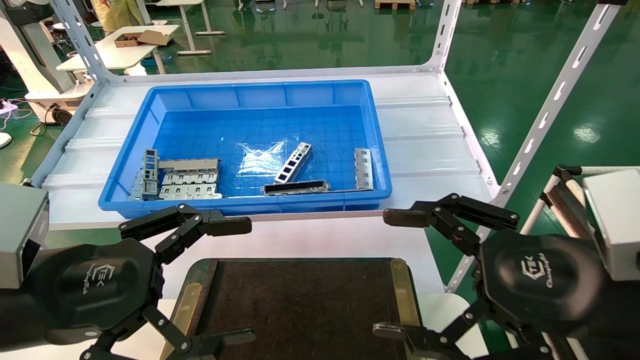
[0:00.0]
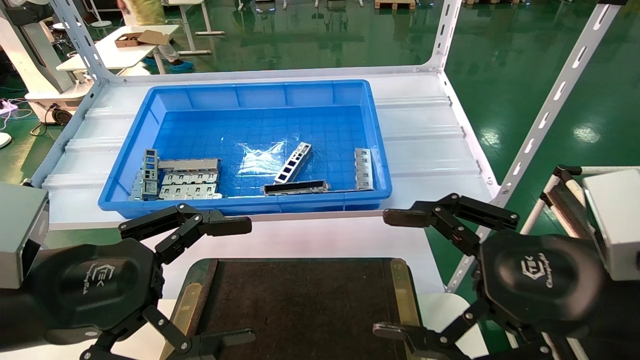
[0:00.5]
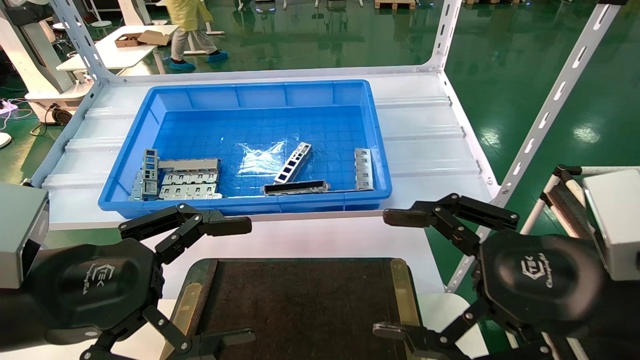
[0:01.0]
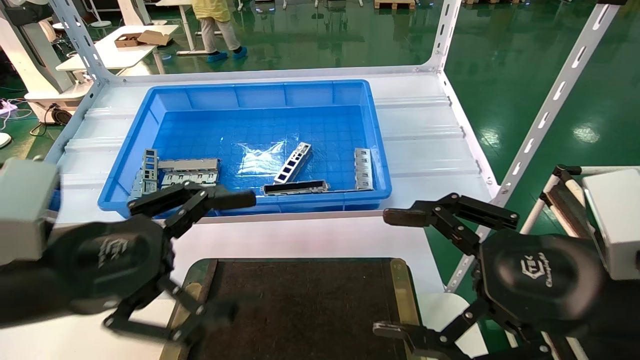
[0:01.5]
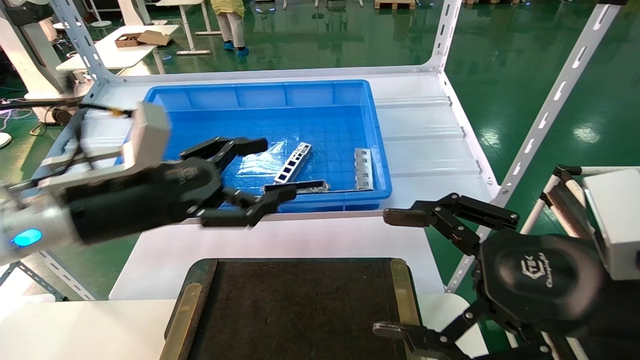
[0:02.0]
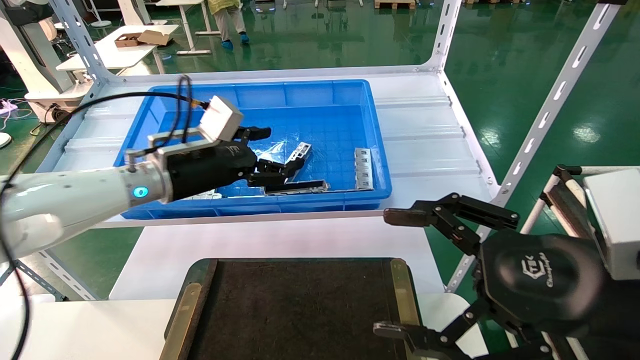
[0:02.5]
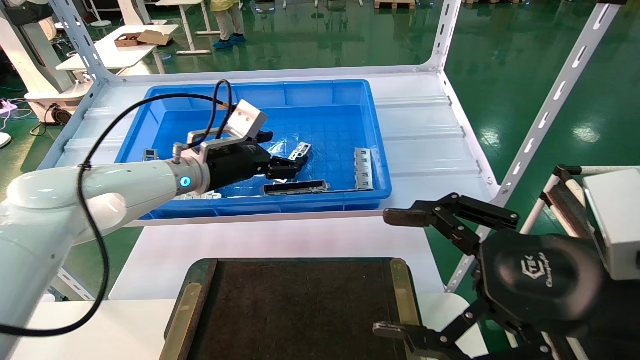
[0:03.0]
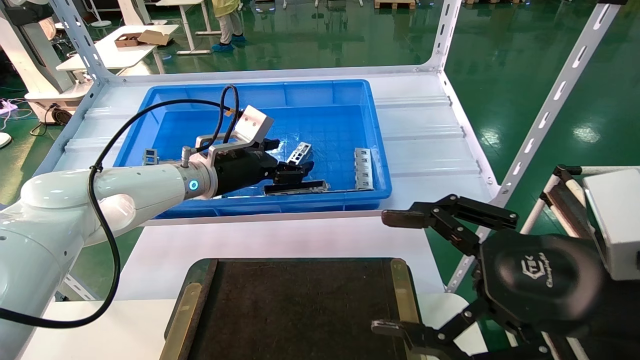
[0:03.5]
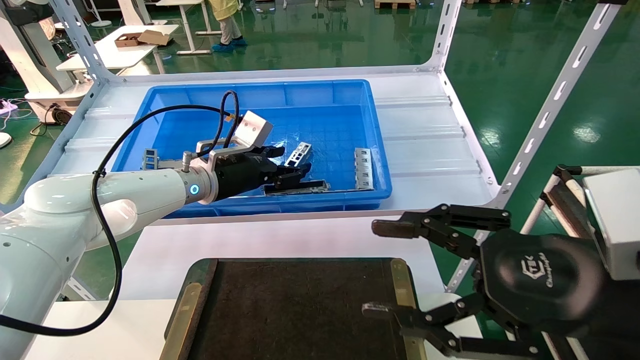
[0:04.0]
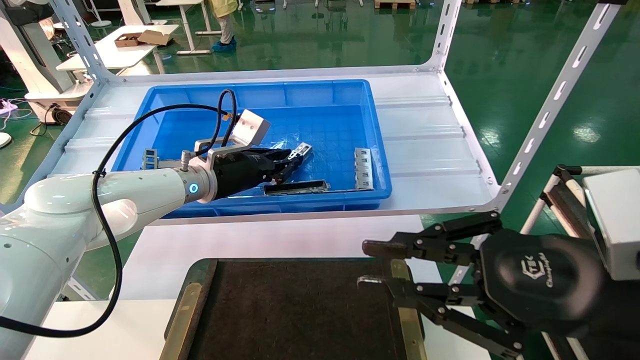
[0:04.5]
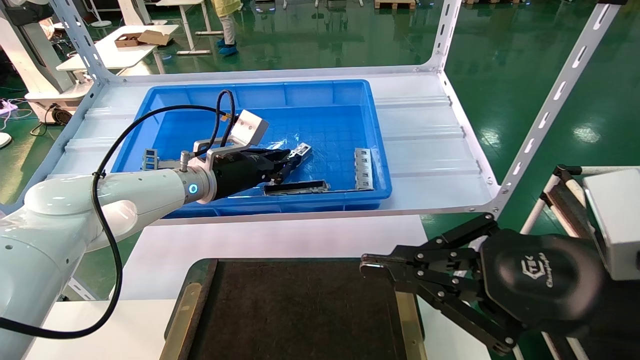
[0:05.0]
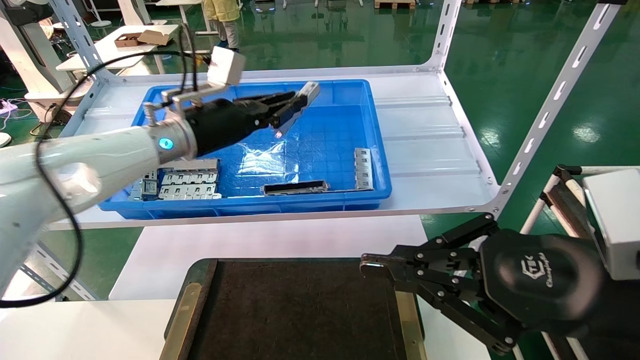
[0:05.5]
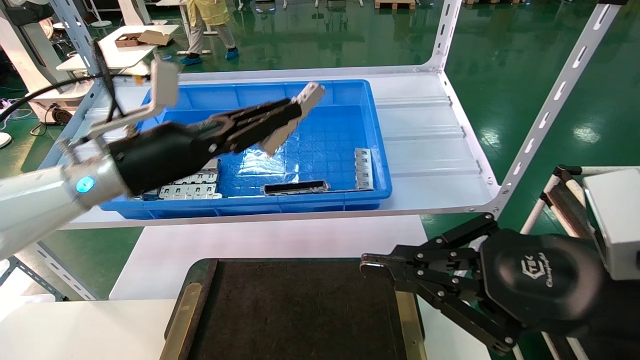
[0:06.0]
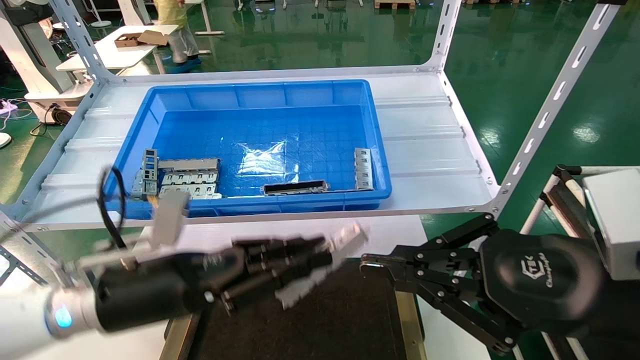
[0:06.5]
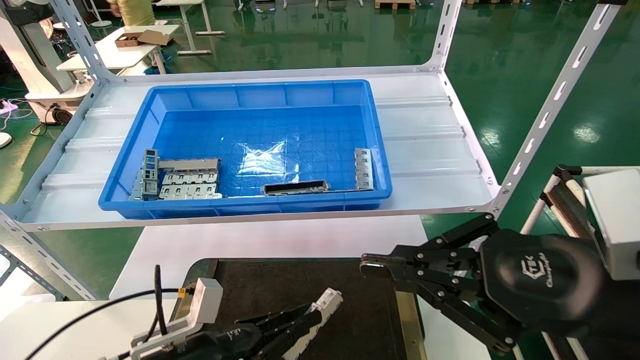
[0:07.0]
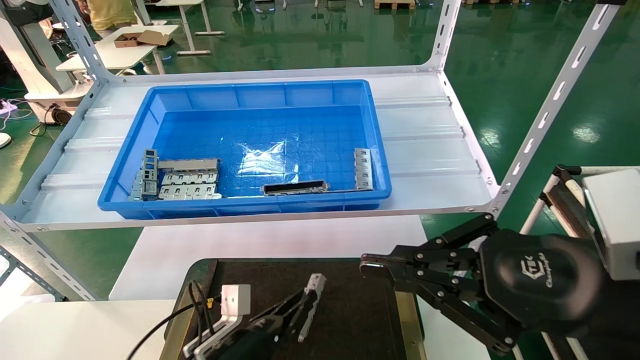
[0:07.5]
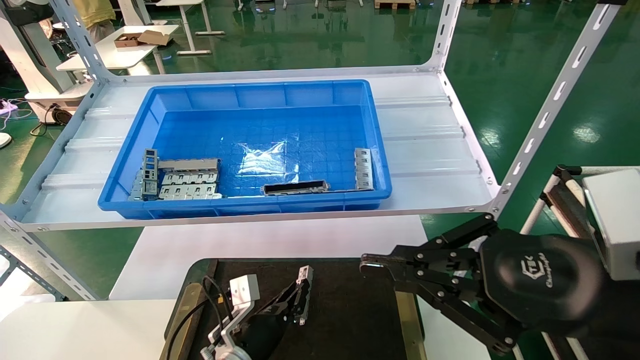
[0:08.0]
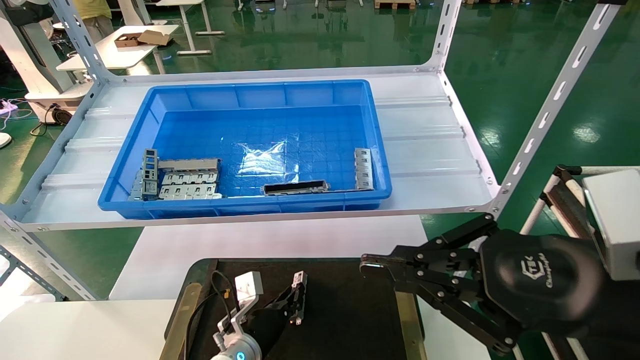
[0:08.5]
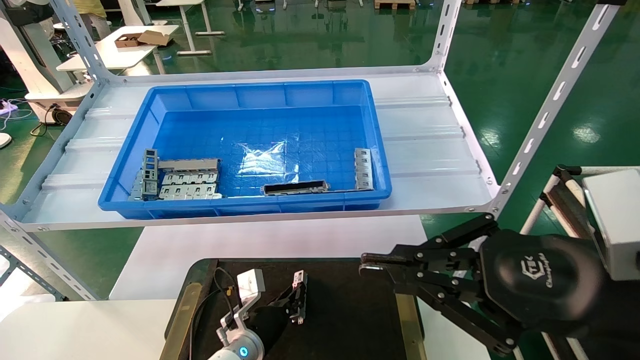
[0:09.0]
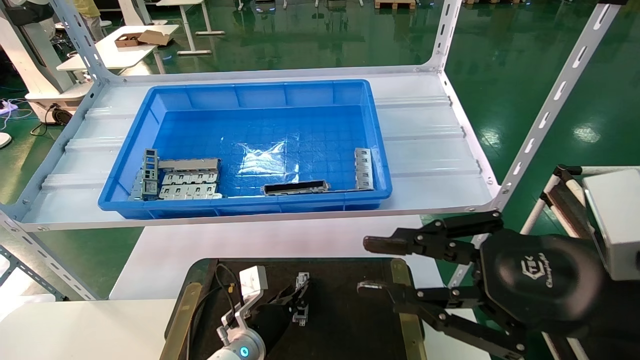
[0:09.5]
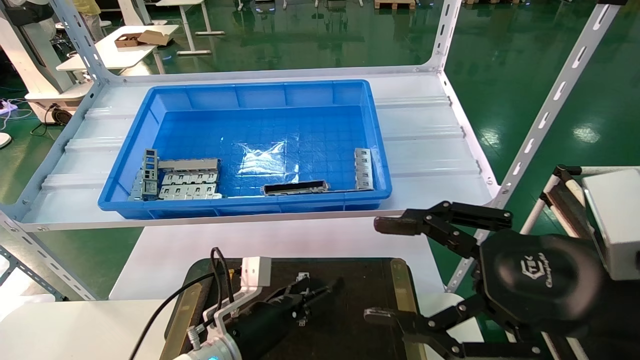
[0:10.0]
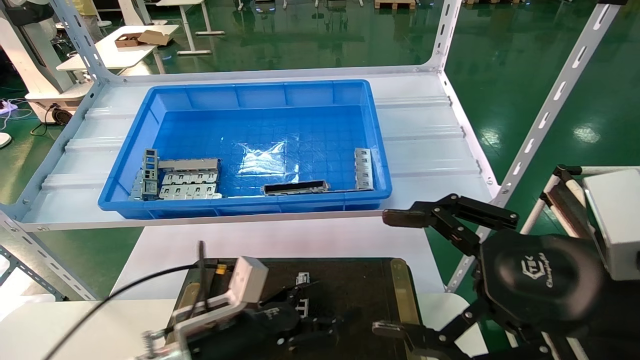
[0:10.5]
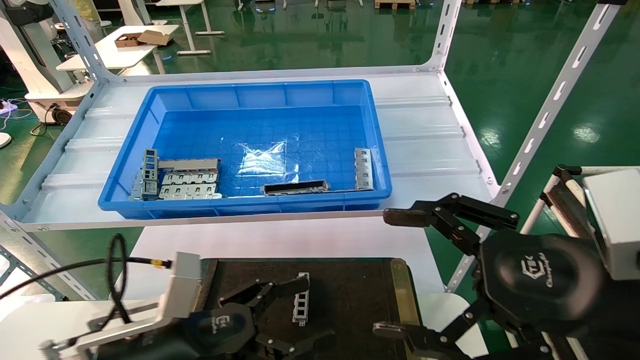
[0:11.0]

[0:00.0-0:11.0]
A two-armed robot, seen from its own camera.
Task of the whole recording: Grasp the part with one hand and place it on the black container.
Step, 0:02.0 to 0:05.5: Pick up the front USB bracket from the feeding area.
Step, 0:06.0 to 0:09.0: Place the front USB bracket into the box.
0:00.0 to 0:02.0: The left gripper shifts about 10 cm forward.
0:02.0 to 0:03.5: The left gripper is displaced forward by some 15 cm.
0:03.5 to 0:05.5: The left gripper is displaced upward by some 5 cm, and closes. Meanwhile the right gripper closes its fingers.
0:05.5 to 0:07.5: The left gripper goes some 35 cm downward.
0:07.5 to 0:09.0: The left gripper is displaced forward by some 10 cm.
0:09.0 to 0:11.0: The left gripper heads backward, upward and to the left, covering some 25 cm, and opens up. Meanwhile the right gripper opens up.

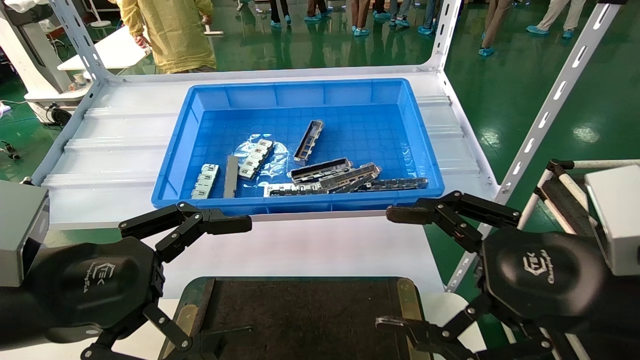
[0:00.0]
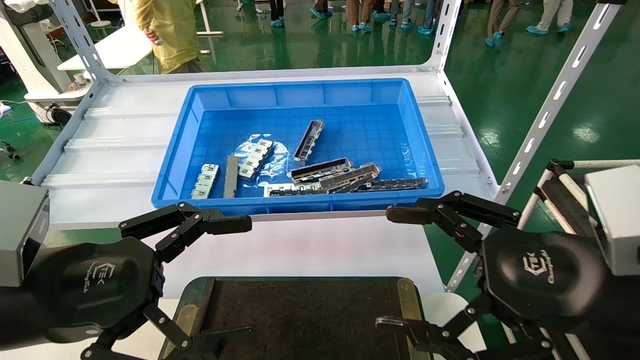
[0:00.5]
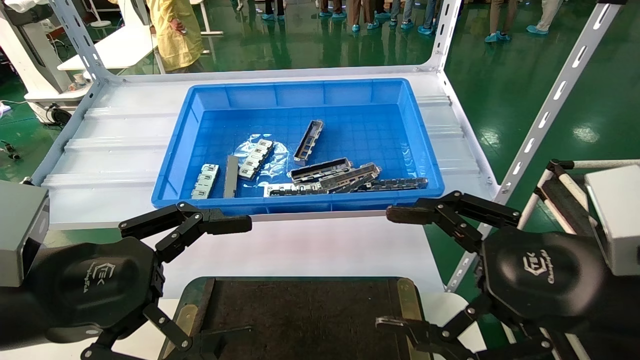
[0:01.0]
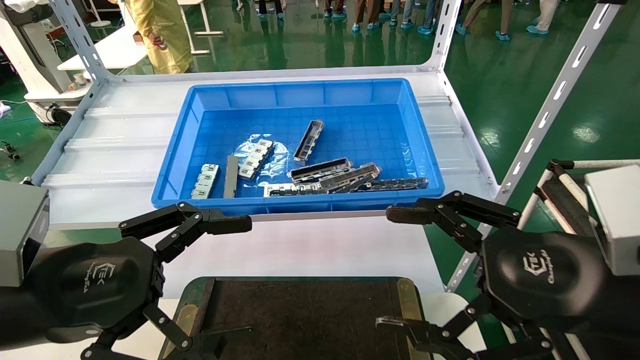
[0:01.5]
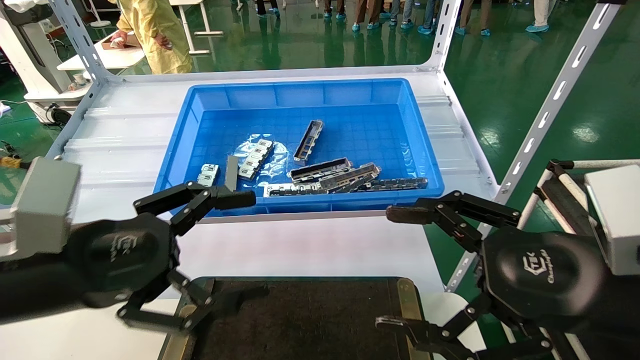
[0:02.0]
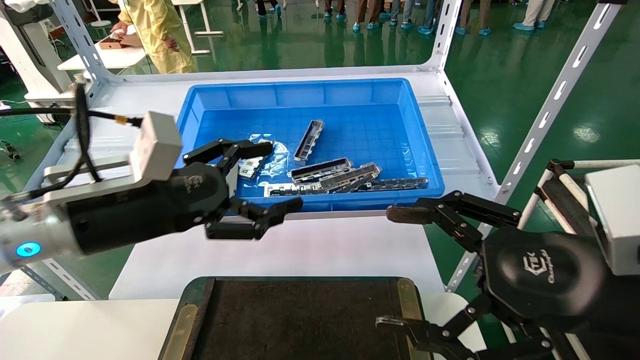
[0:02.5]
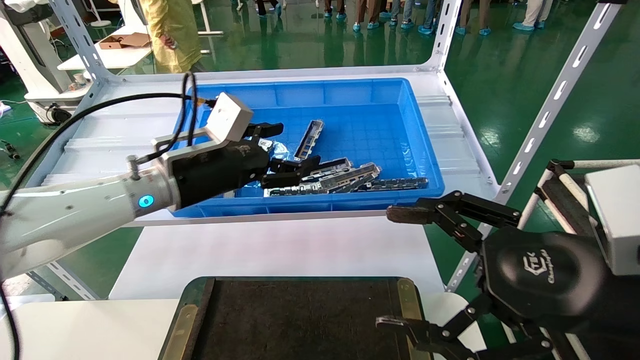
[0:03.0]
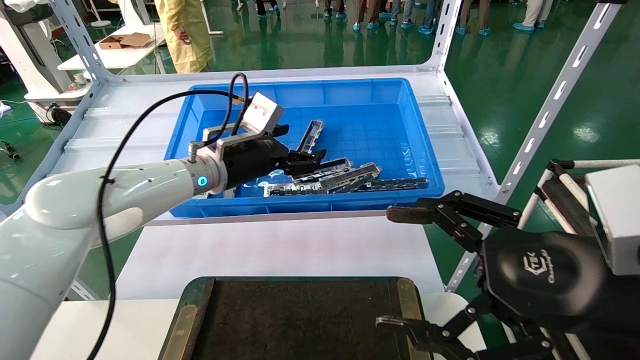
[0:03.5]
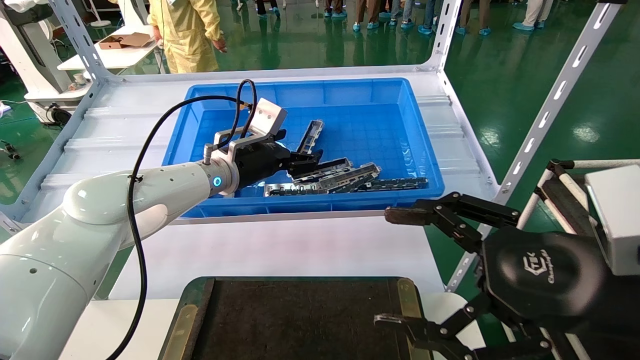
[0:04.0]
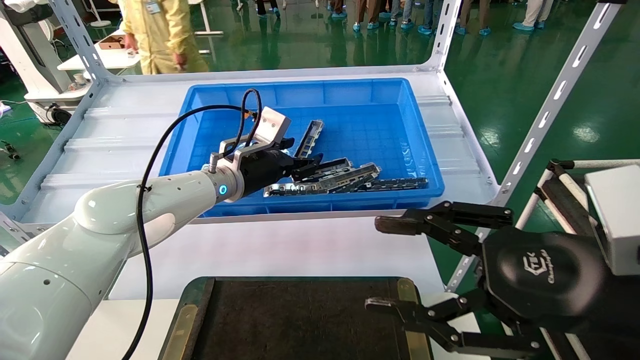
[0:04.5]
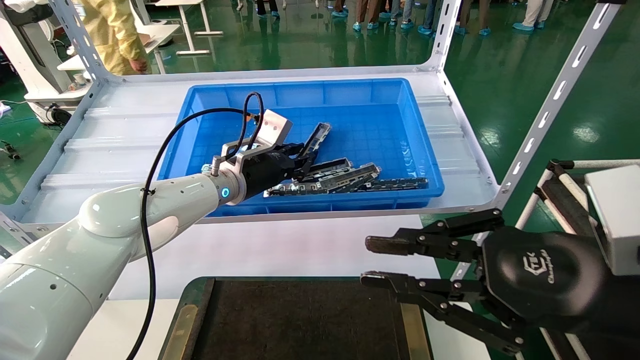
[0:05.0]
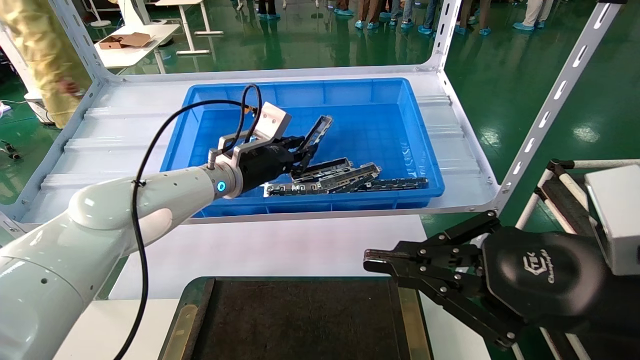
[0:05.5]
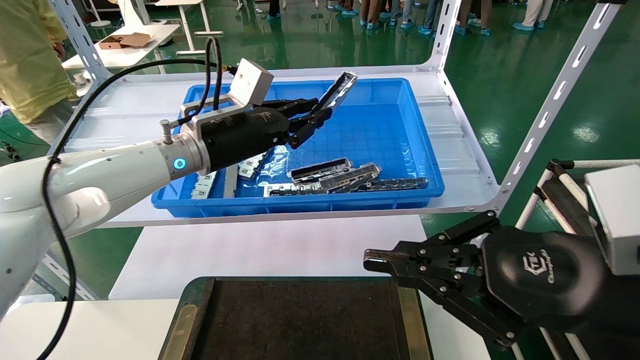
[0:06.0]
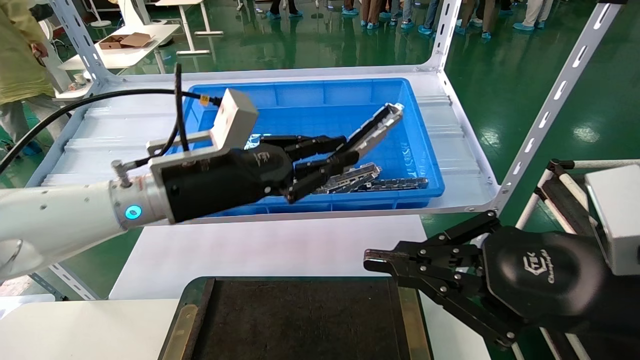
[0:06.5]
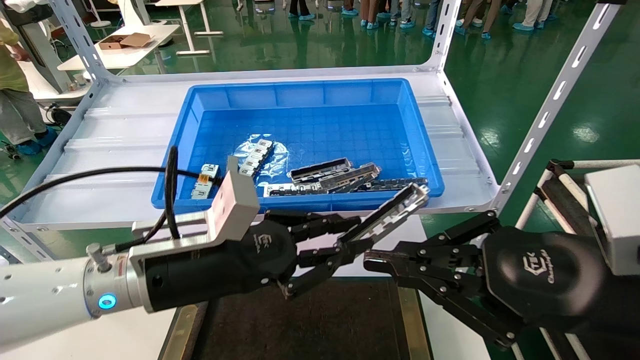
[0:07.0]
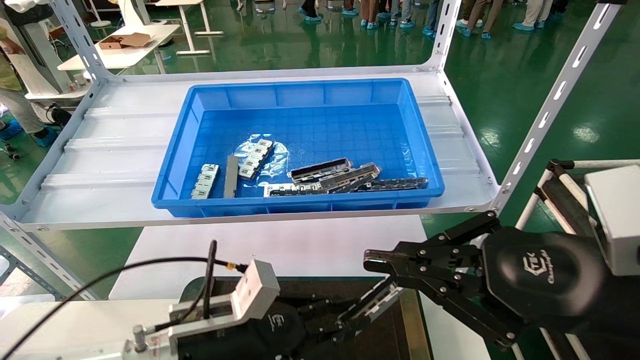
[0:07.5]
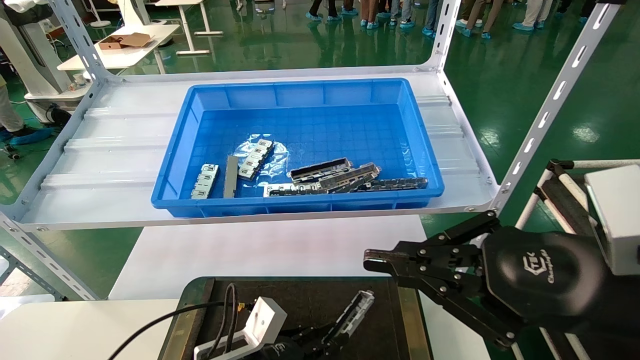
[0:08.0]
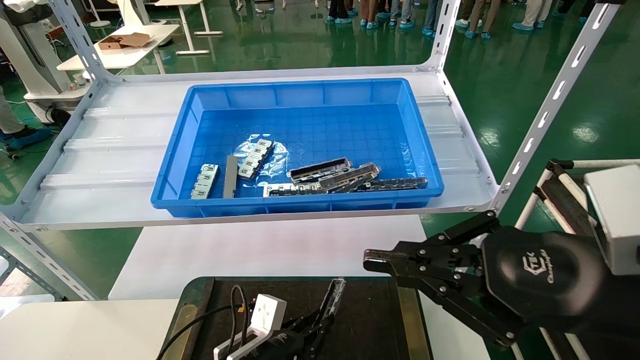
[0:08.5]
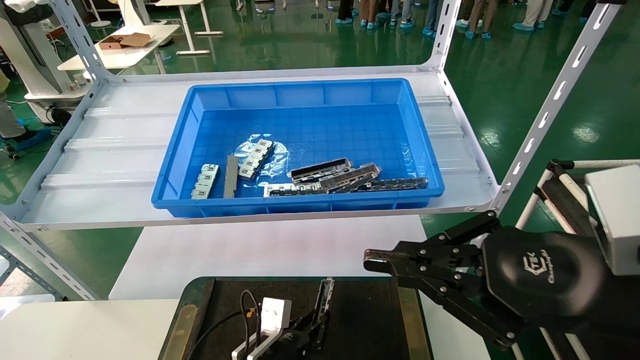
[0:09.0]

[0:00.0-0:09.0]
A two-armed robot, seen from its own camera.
Task of the whole recording: Grasp the part with one hand and place it on the black container.
Step, 0:02.0 to 0:05.0: Pick up the front USB bracket from the feeding area.
0:00.0 to 0:02.0: The grippers stay close to where they were, moving slightly.
0:02.0 to 0:04.5: The left gripper travels forward and to the right by about 30 cm.
0:04.5 to 0:07.0: The left gripper travels backward by roughly 20 cm, and closes up, while the right gripper closes up.
0:07.0 to 0:09.0: The left gripper shifts about 25 cm downward.
